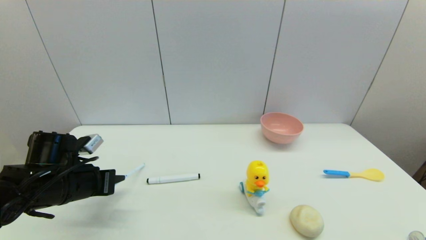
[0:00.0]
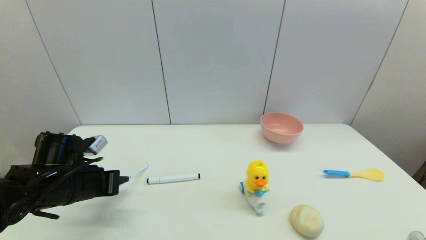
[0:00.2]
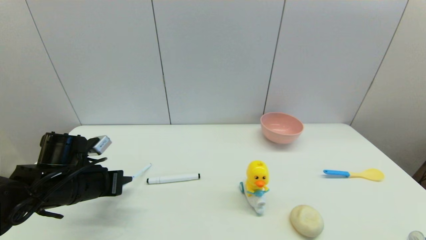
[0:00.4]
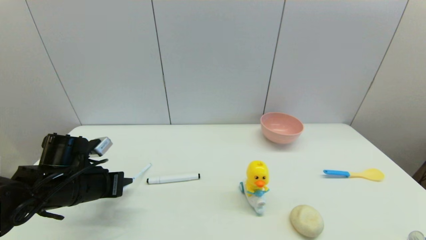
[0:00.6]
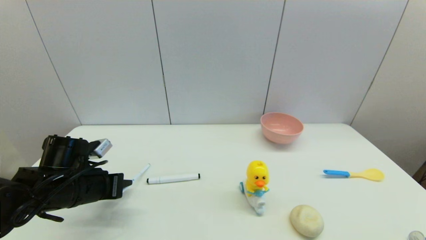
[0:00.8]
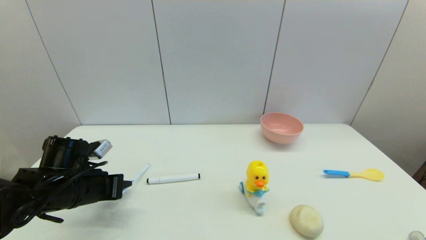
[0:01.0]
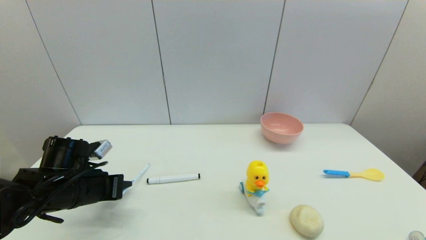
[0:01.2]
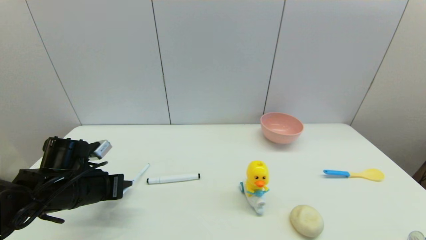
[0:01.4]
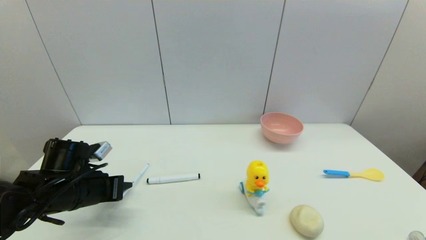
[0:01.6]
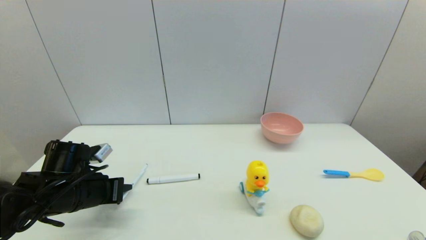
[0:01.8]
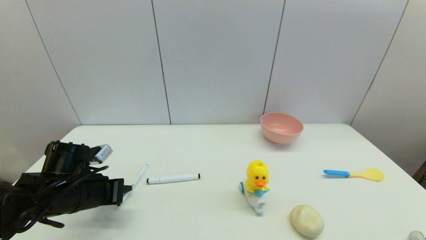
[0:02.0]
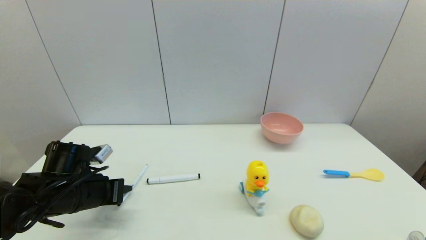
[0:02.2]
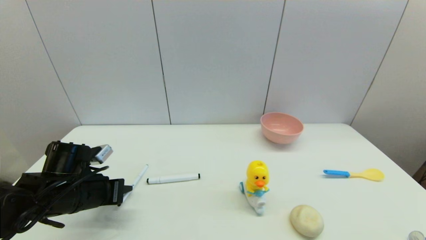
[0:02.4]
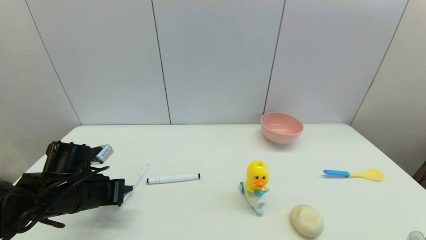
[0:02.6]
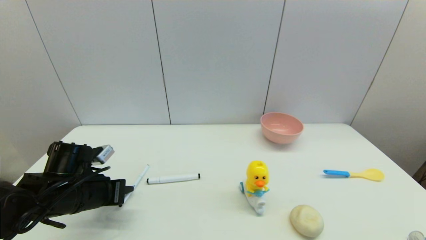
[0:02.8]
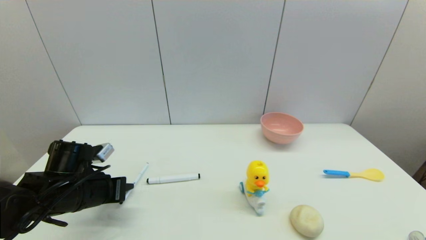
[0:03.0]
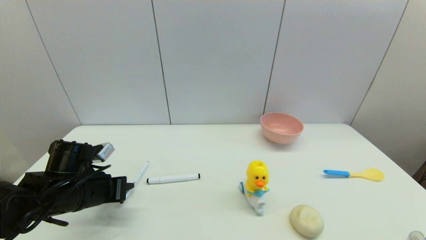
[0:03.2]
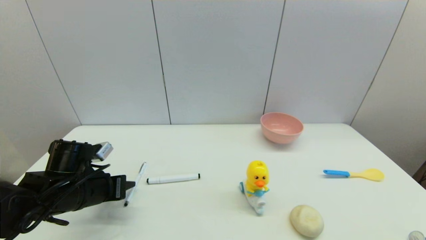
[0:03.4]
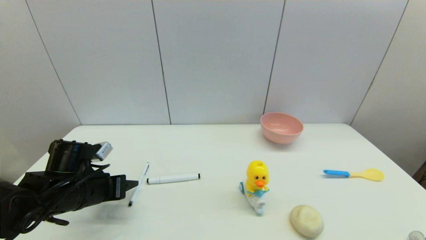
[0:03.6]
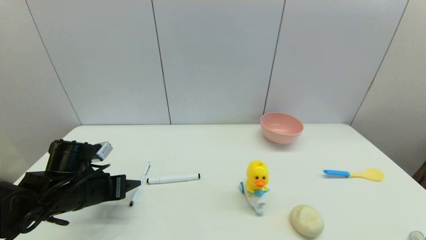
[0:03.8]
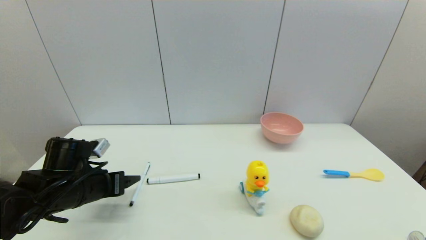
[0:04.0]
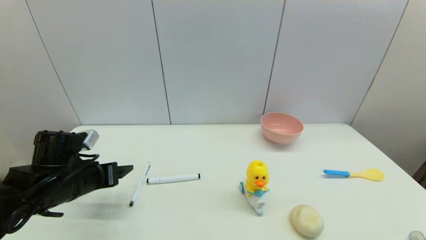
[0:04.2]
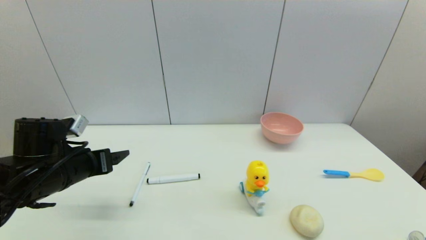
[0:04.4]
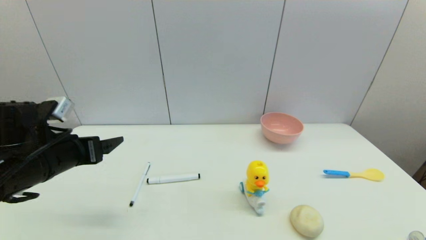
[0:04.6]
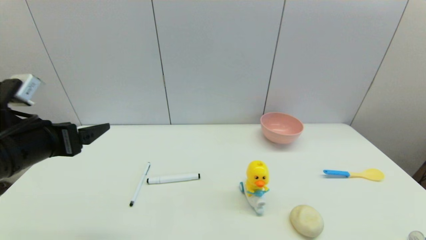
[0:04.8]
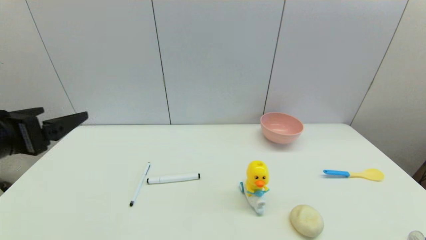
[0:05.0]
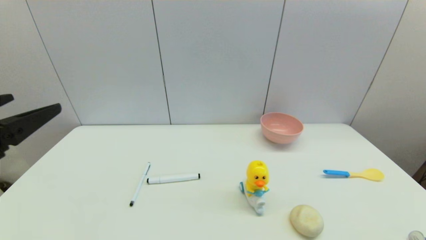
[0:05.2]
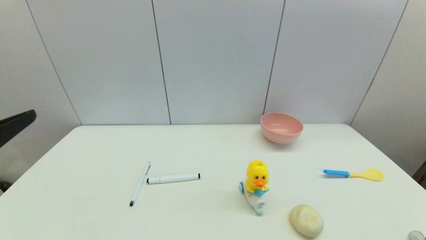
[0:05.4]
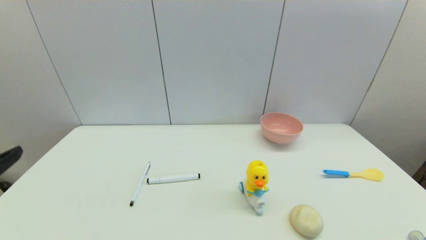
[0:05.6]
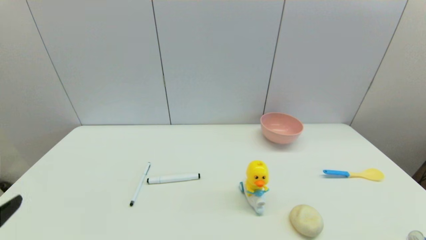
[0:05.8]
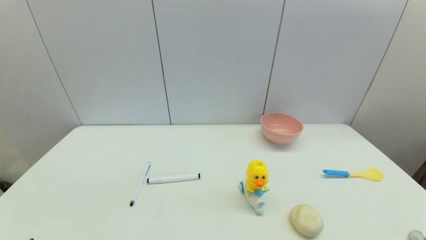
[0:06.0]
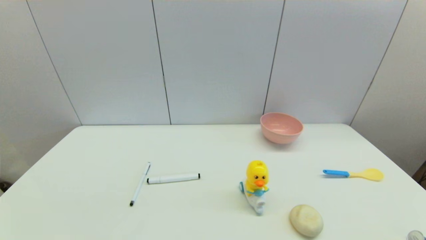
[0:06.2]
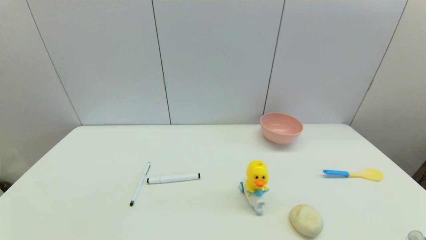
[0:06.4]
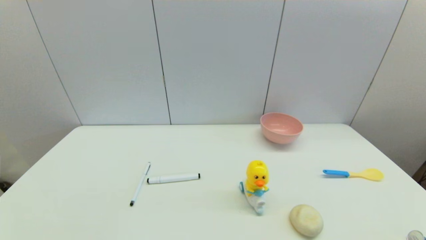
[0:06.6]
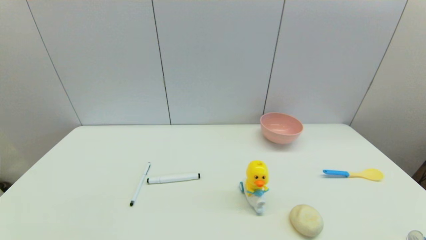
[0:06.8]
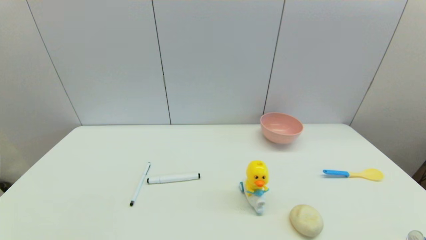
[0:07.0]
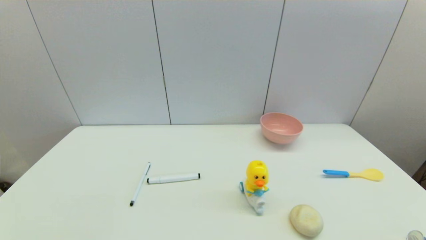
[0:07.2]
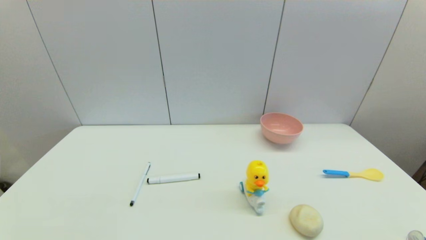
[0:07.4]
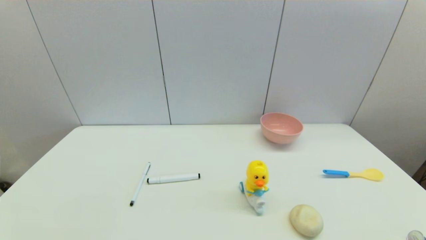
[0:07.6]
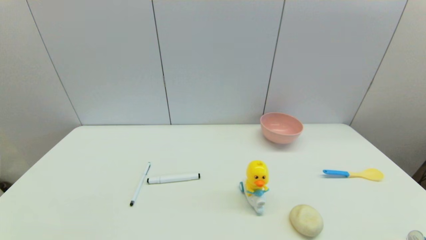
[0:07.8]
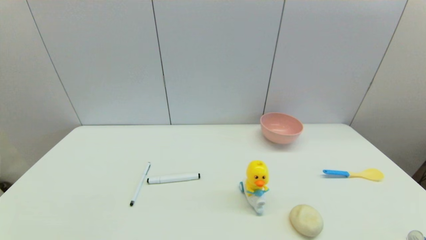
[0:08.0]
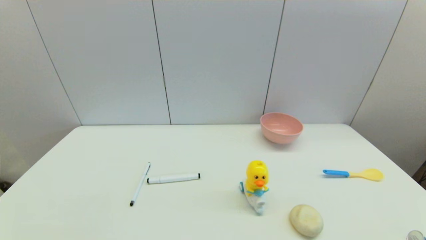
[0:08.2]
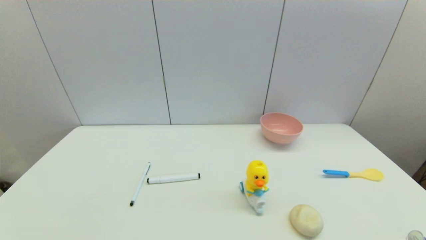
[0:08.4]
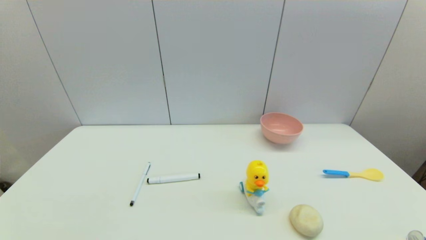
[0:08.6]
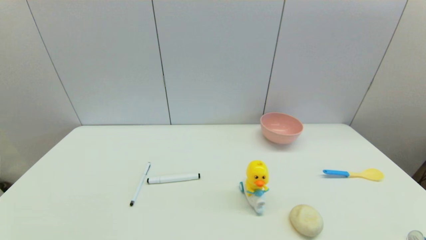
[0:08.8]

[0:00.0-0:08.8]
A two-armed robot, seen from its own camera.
Task of the whole recording: put the pen in the designated position.
Step, 0:00.0 to 0:03.6: Place the sign pen on the table with left gripper.
0:00.0 to 0:01.4: The grippers move only a little.
0:01.4 to 0:03.0: The two grippers keep their place.
0:03.0 to 0:04.4: The left gripper travels upward by about 5 cm, and opens its fingers.
0:04.4 to 0:05.8: The left gripper heads backward, covering some 20 cm.

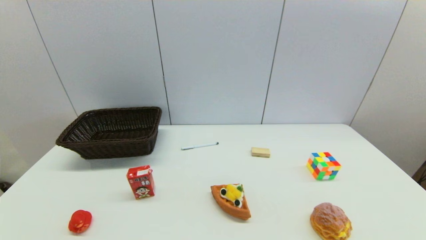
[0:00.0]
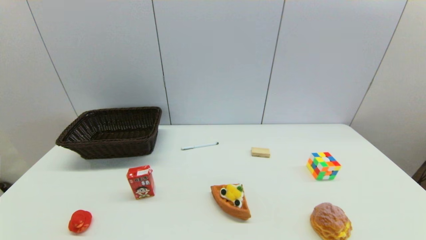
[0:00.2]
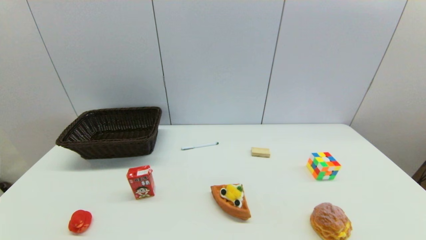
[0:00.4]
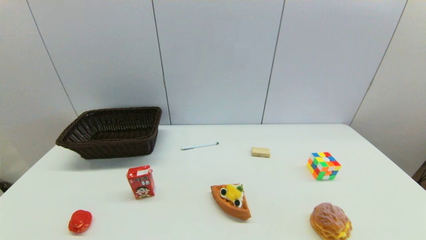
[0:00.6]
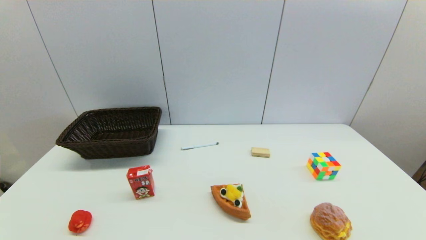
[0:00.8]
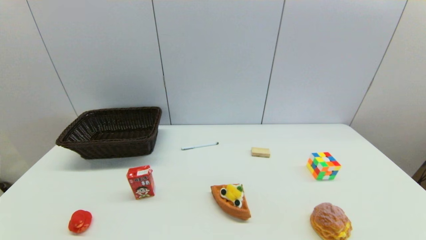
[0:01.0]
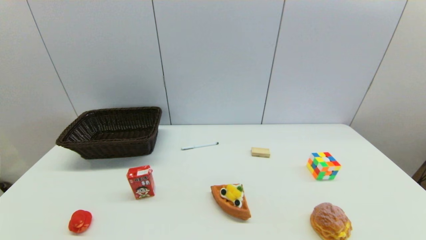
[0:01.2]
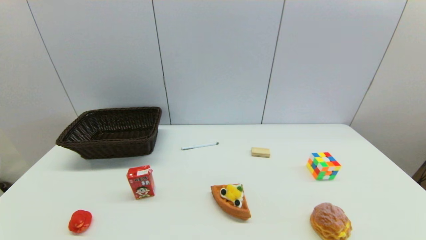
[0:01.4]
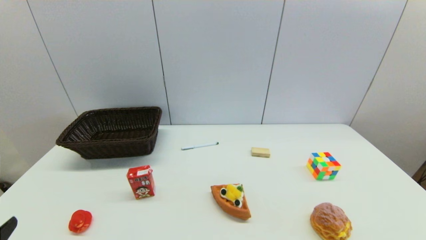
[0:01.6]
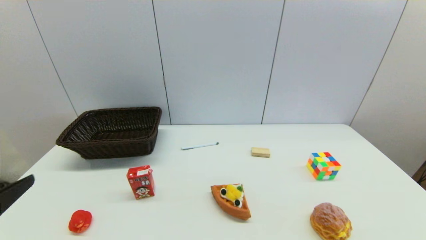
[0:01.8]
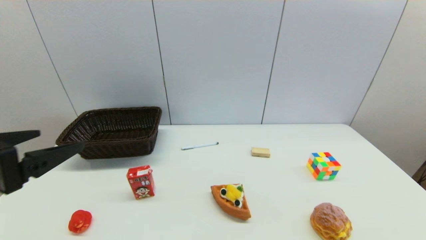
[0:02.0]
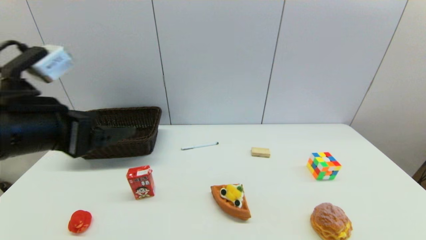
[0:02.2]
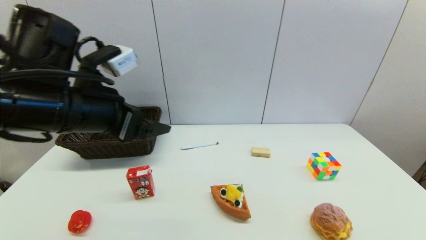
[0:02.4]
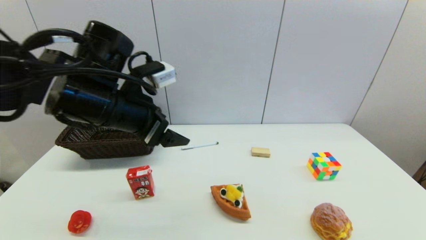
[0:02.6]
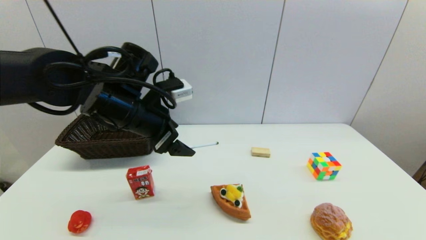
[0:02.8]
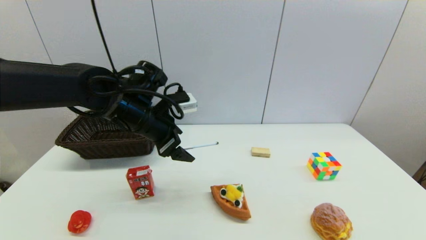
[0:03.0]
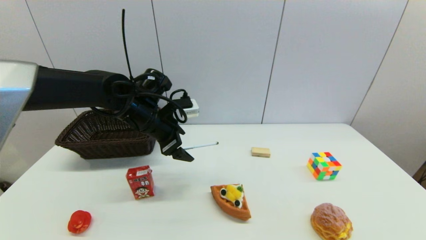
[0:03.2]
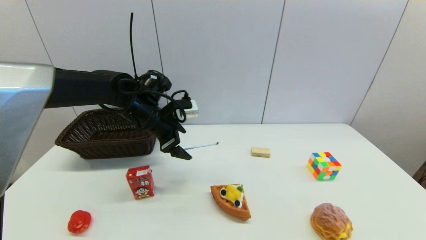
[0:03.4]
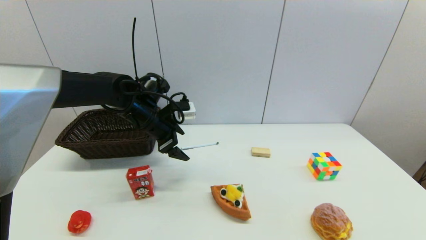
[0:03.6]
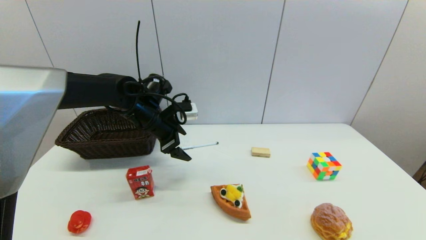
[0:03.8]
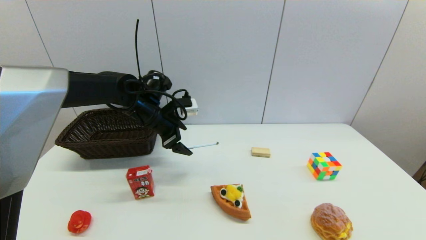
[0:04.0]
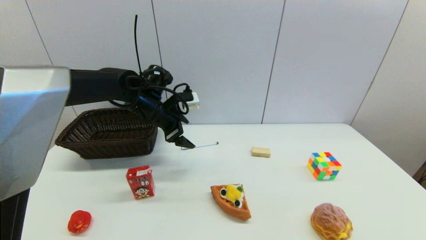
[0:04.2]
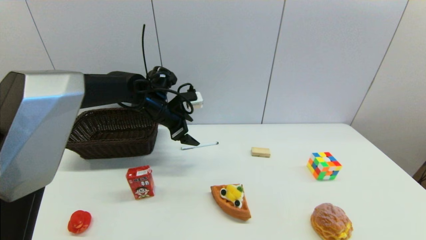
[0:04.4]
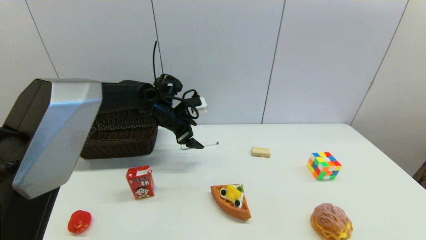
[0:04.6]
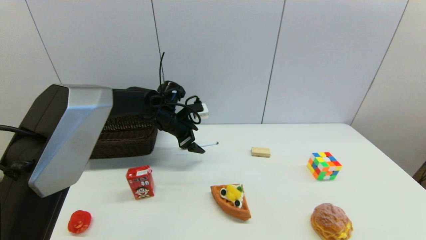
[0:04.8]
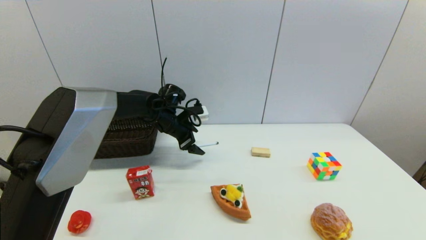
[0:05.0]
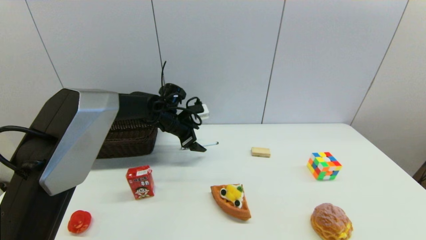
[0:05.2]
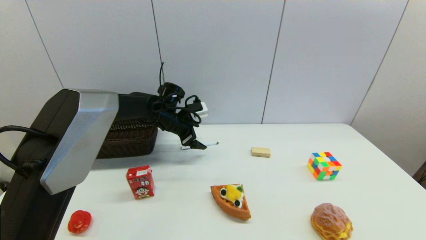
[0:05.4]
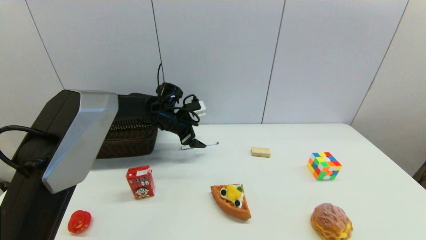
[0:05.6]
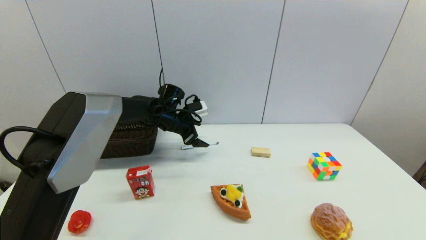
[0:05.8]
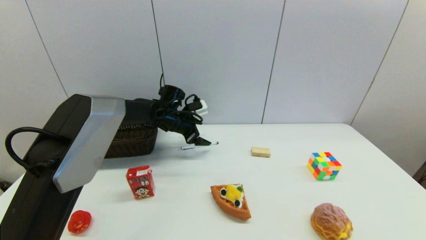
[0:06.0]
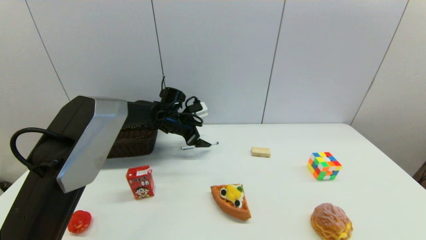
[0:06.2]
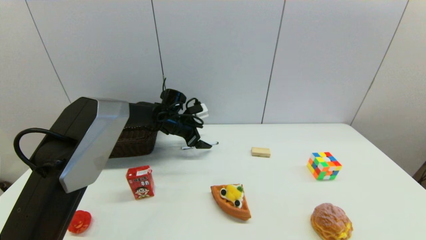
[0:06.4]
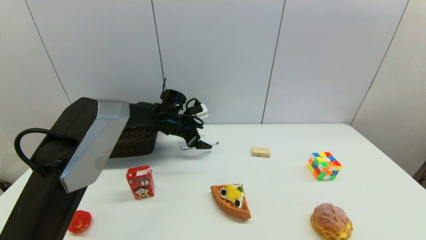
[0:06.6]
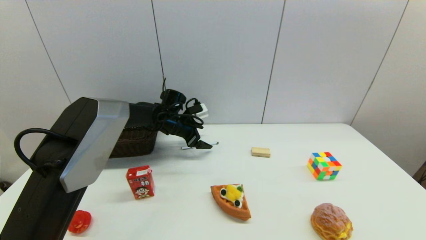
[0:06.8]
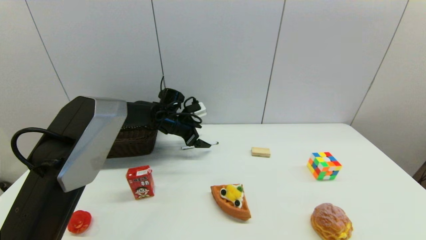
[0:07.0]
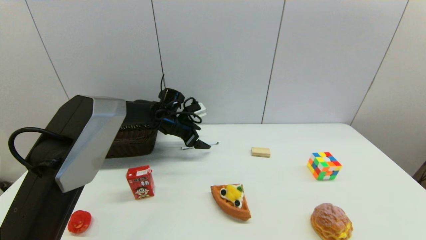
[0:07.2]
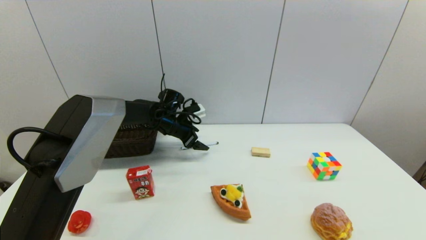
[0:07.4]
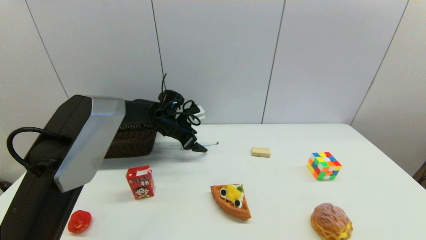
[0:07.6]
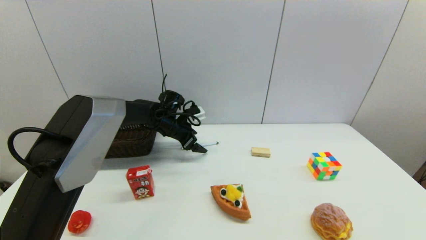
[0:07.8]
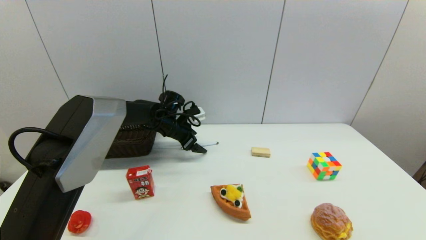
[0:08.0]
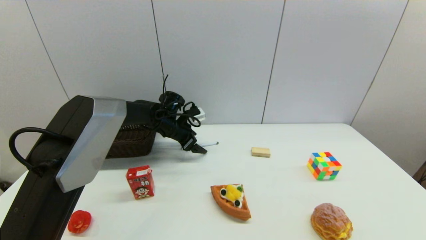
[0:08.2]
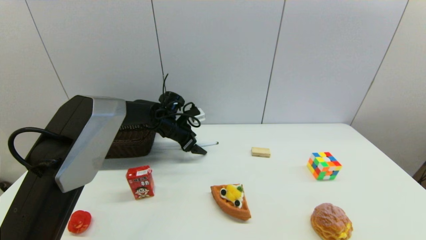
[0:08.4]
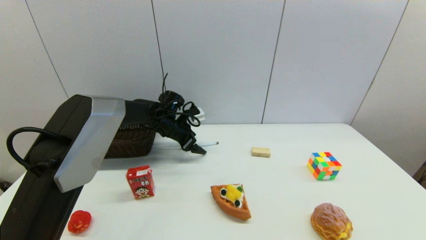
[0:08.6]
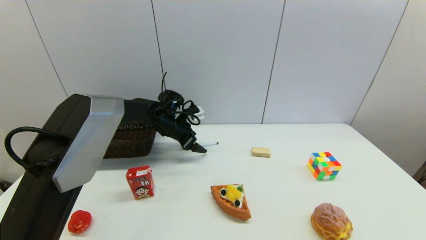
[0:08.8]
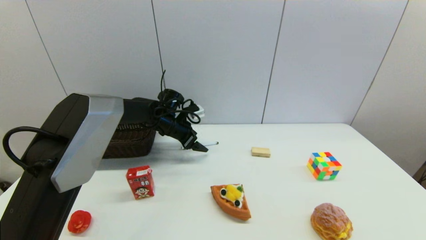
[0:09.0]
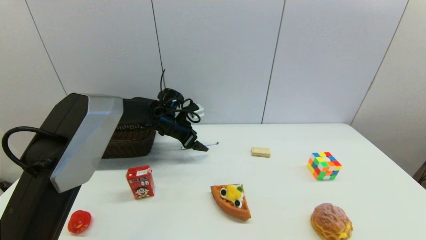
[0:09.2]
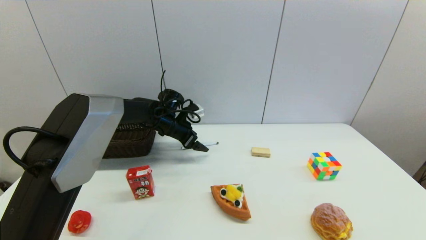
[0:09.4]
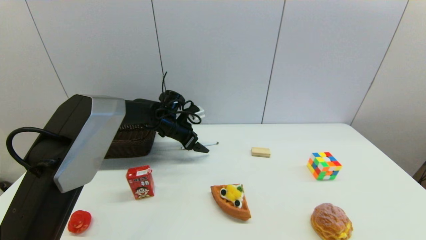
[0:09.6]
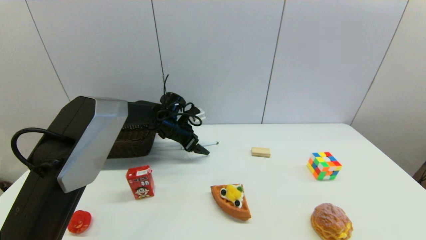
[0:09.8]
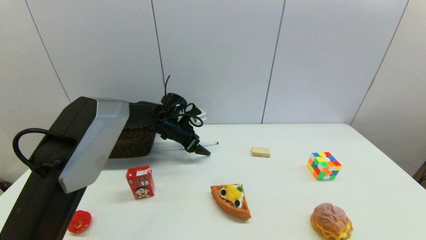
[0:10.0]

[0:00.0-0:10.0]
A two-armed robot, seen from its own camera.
Task of the whole recording: put the pen in the designated position.
0:01.4 to 0:02.8: The left gripper is displaced forward, to the right and upward by some 35 cm.
0:02.8 to 0:04.2: The left gripper shifts roughly 10 cm forward and downward.
0:04.2 to 0:05.8: The left gripper heads downward and forward, covering approximately 10 cm.
0:05.8 to 0:10.0: The grippers stay close to where they were, moving slightly.
